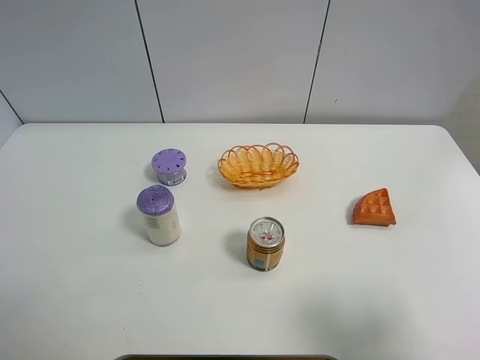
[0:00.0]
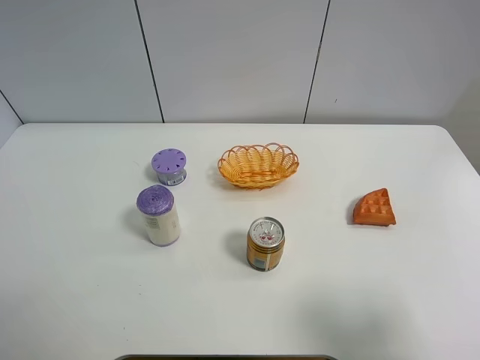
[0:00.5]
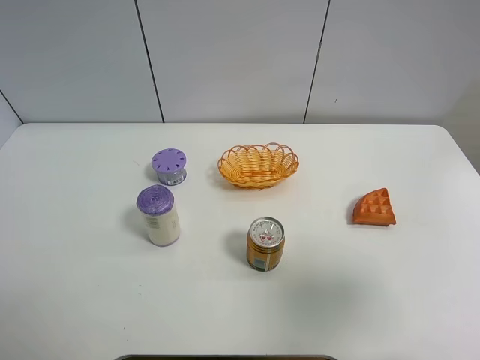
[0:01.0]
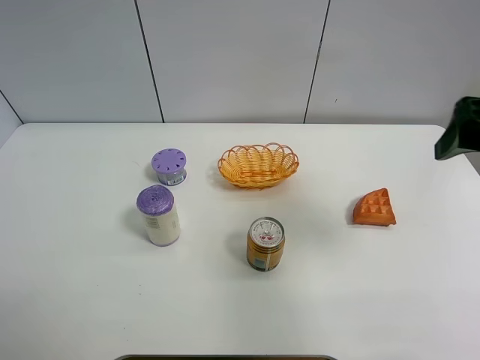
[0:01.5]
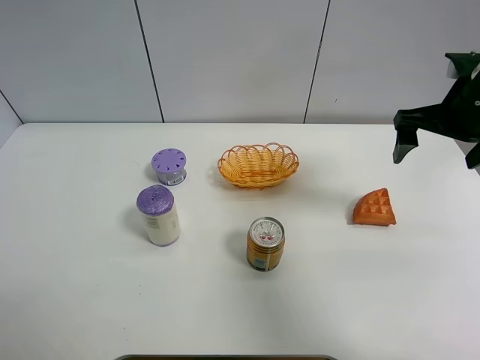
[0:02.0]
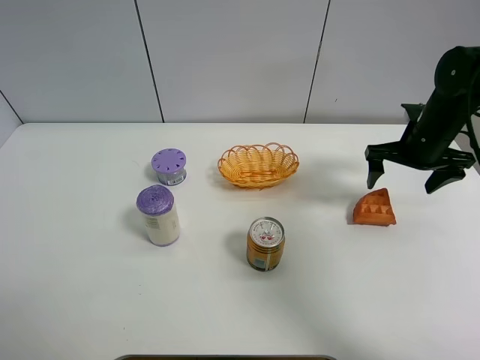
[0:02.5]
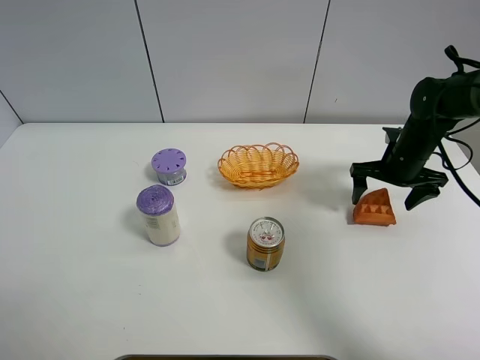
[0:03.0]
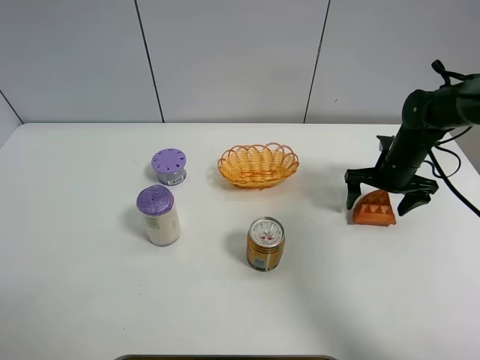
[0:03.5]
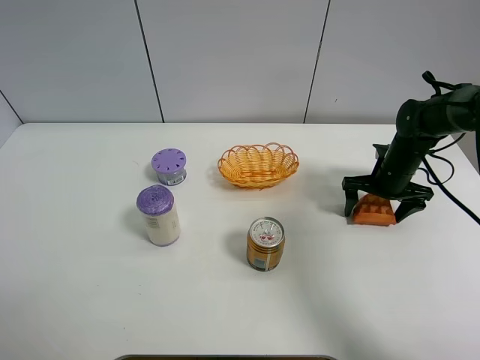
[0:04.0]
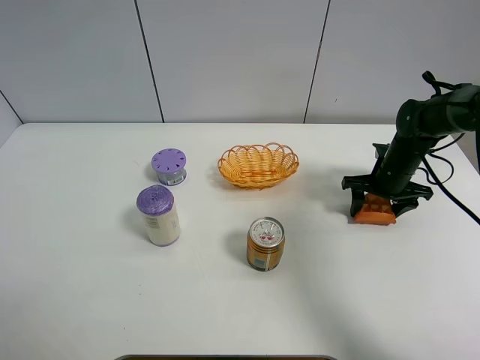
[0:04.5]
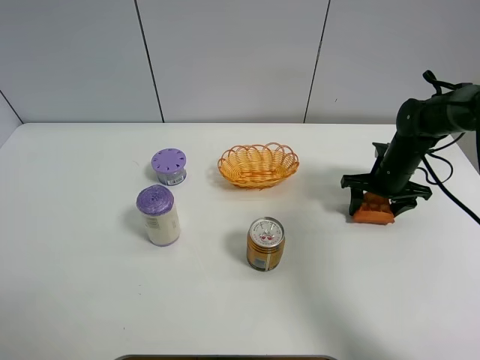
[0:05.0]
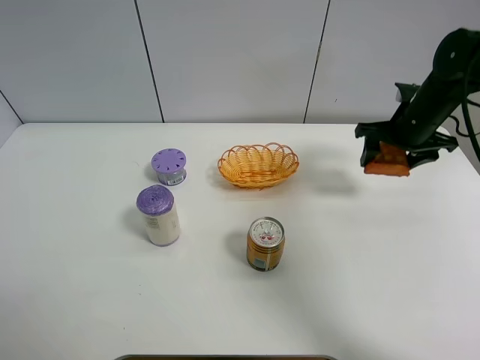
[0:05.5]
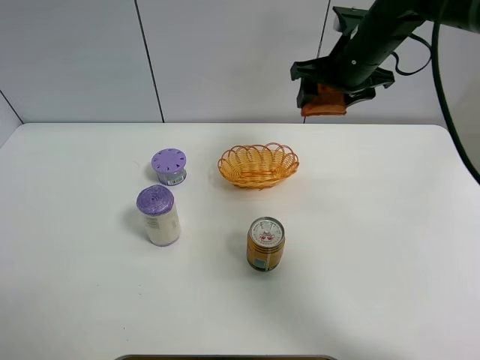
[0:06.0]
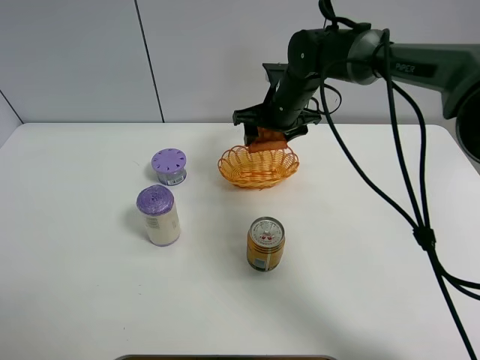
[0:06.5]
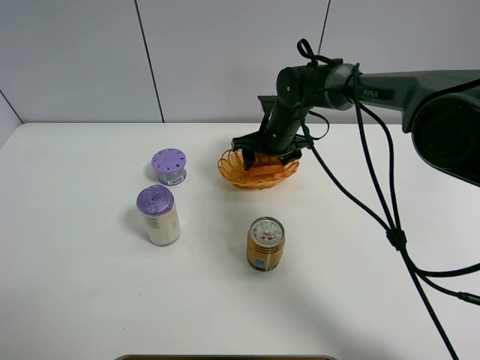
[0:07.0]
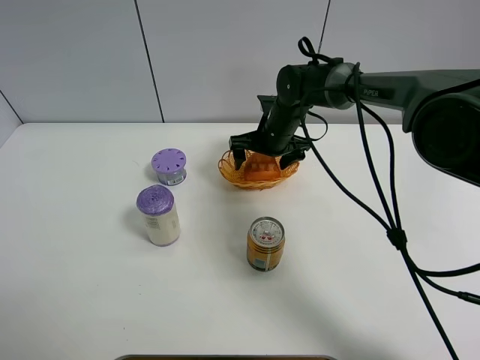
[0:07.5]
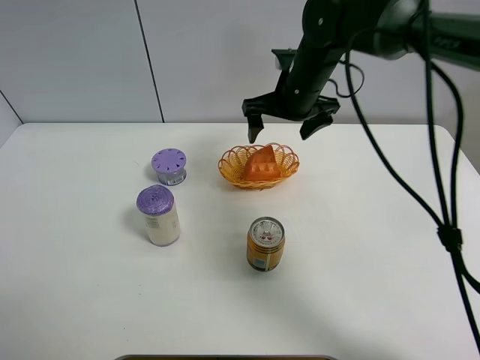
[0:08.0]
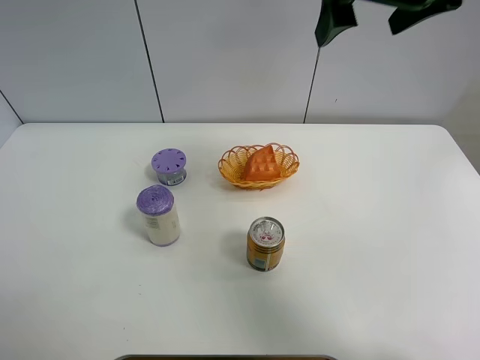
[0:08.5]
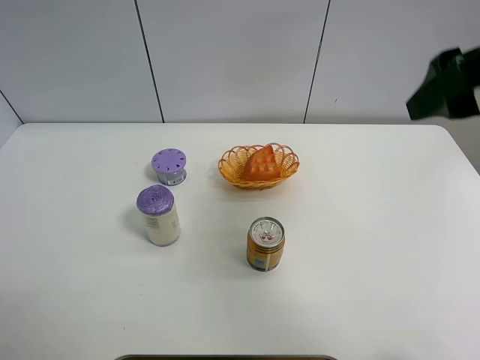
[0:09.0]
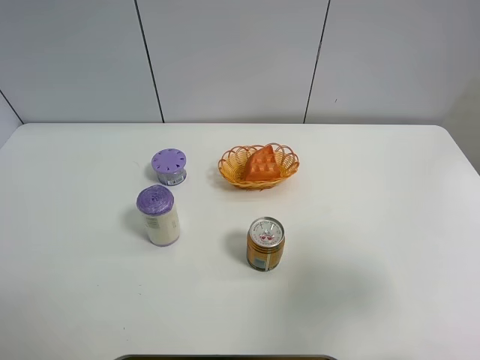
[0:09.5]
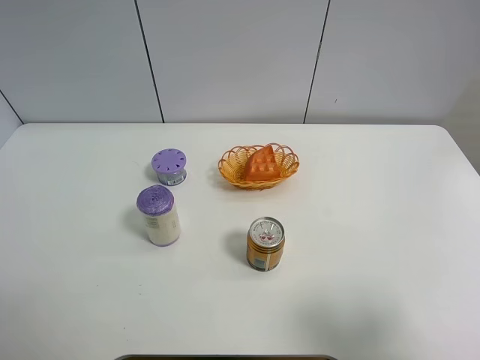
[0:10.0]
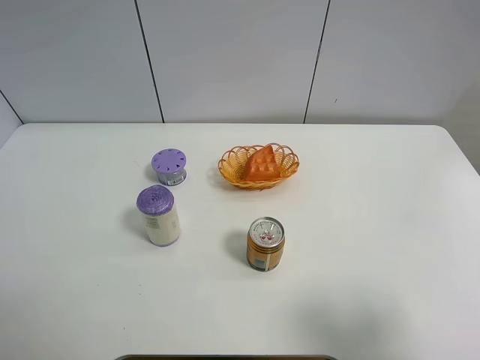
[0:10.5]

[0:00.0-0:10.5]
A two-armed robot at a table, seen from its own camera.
Task of the whole recording: Put the bakery in the basket.
Step, 0:00.0 to 0:04.0: Grasp the bread with right gripper.
Step, 0:04.5 to 0:08.0: Place the bread in the basket with right gripper.
0:00.0 to 0:02.0: The right gripper goes some 30 cm forward.
0:02.0 to 0:04.0: The right gripper moves downward, about 20 cm.
0:04.0 to 0:06.5: The right gripper is displaced to the left and upward by roughly 20 cm, and closes up.
0:06.5 to 0:08.5: The right gripper shifts about 30 cm upward and backward, and opens its fingers.
0:08.5 to 0:10.5: The right gripper is displaced backward, downward and to the right by about 35 cm.

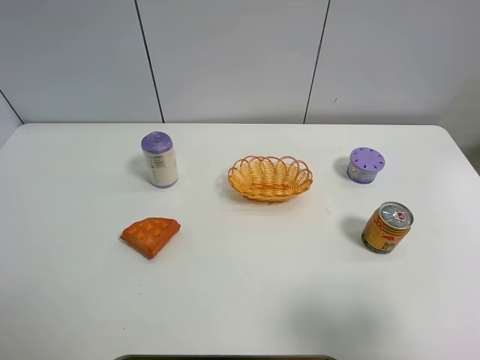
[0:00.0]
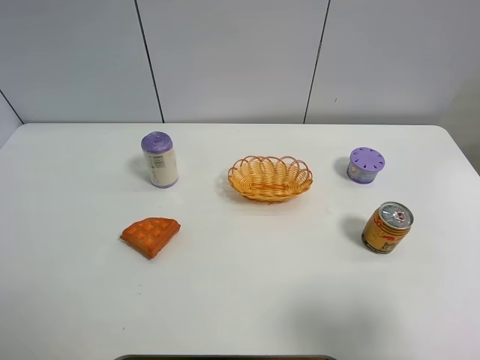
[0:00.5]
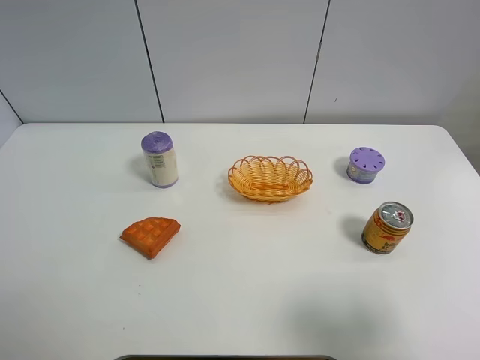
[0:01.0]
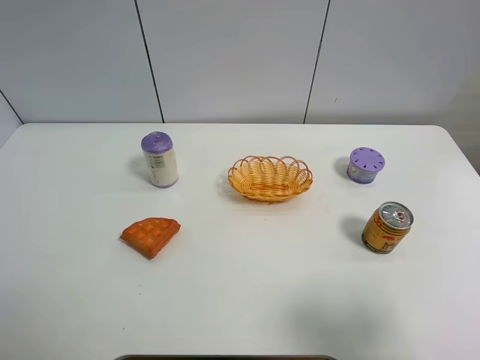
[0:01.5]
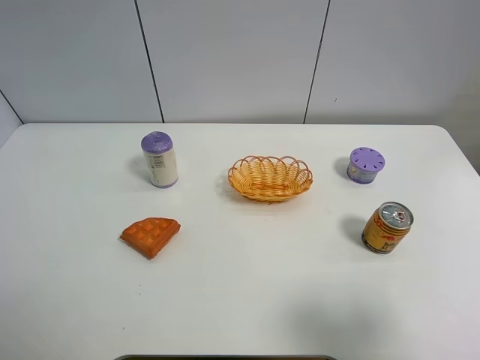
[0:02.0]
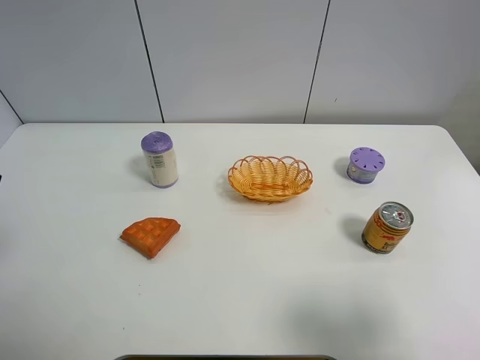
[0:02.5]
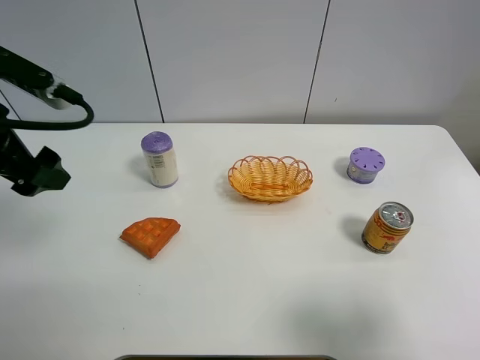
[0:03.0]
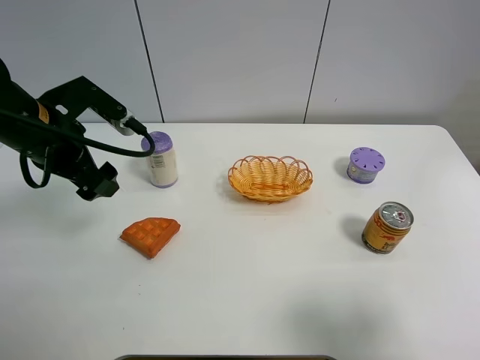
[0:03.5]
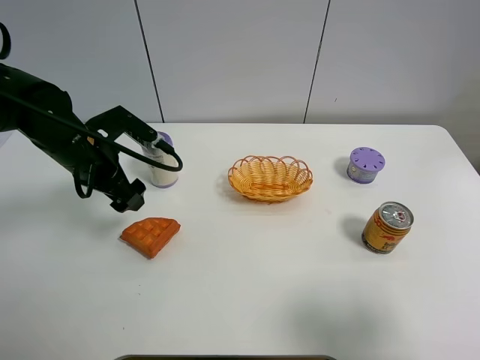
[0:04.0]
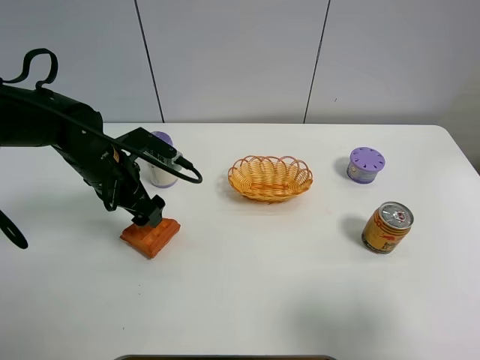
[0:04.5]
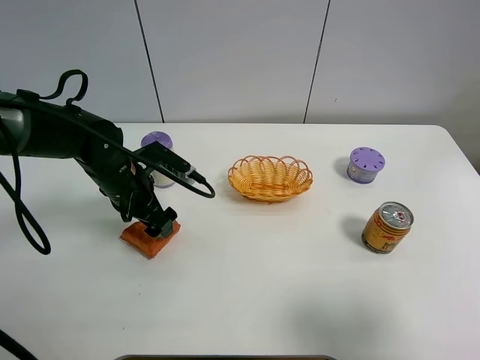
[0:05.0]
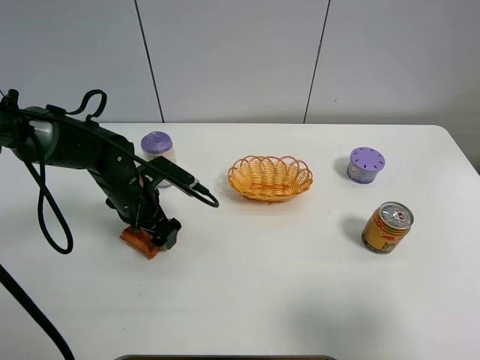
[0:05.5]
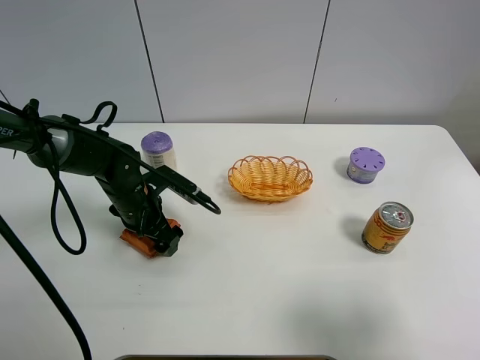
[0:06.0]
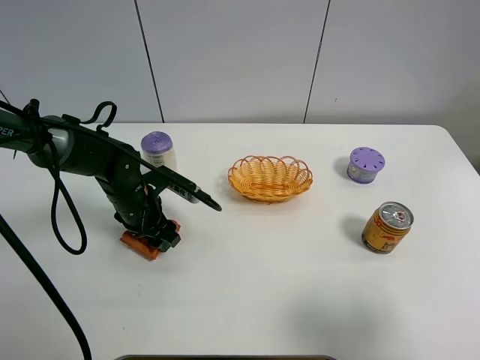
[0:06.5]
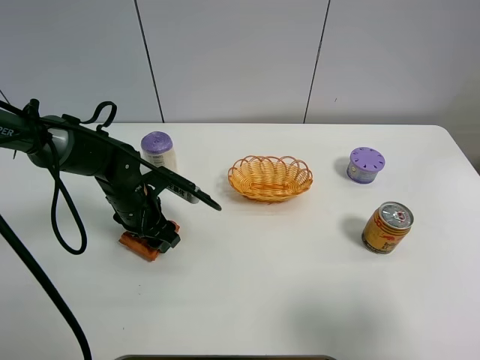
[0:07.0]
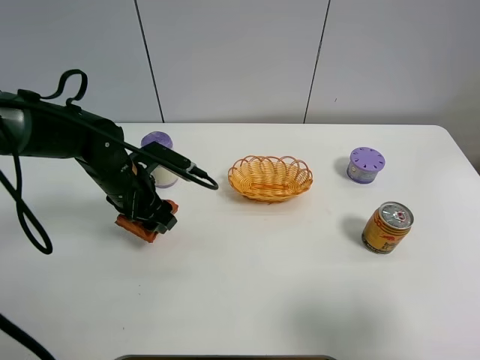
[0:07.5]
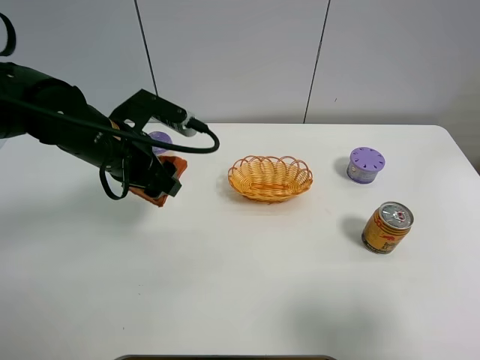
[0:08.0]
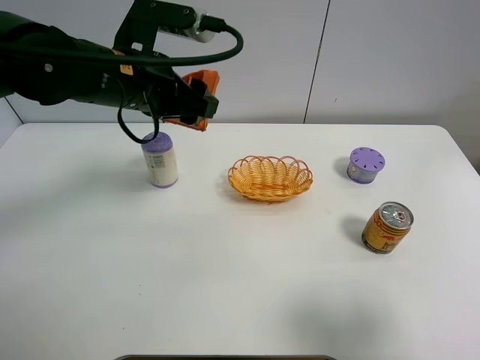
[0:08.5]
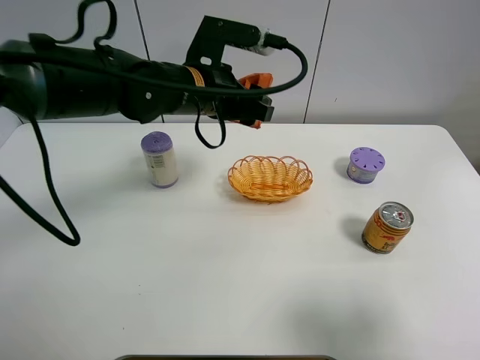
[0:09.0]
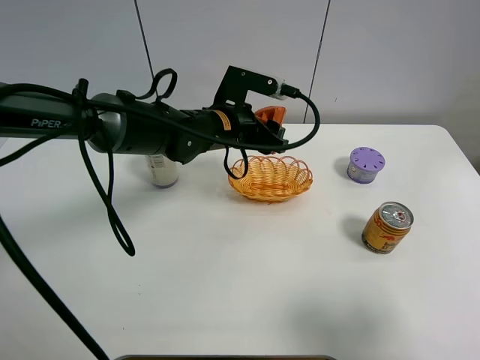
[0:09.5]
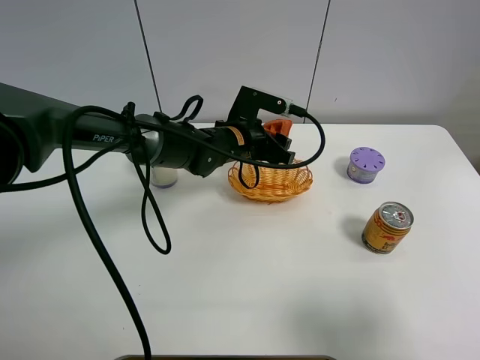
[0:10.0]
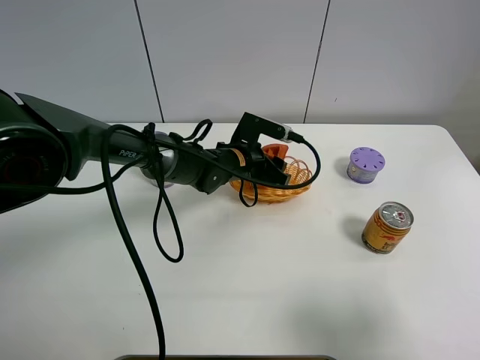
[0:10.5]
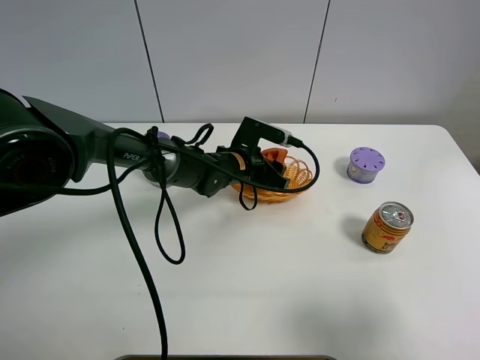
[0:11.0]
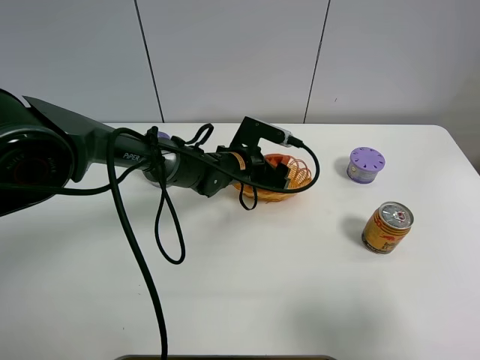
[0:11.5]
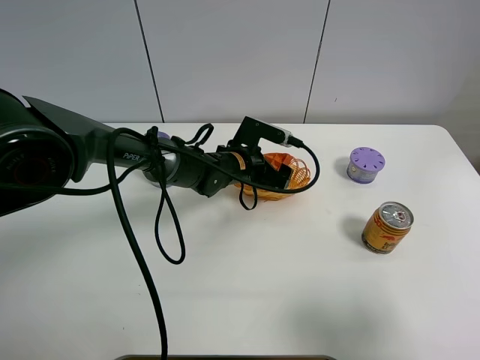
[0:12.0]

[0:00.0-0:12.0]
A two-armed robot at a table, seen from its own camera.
Task of the whole recording: Put the bakery in the basket.
0:02.0 to 0:04.0: The left gripper goes some 30 cm forward, downward and to the right.
0:04.0 to 0:06.0: The left gripper travels downward by some 10 cm.
0:06.0 to 0:08.0: The left gripper shifts some 15 cm upward, and closes.
0:08.0 to 0:10.0: The left gripper moves to the right, downward and forward, some 20 cm.
0:10.0 to 0:12.0: The left gripper is displaced downward by approximately 5 cm, and opens.

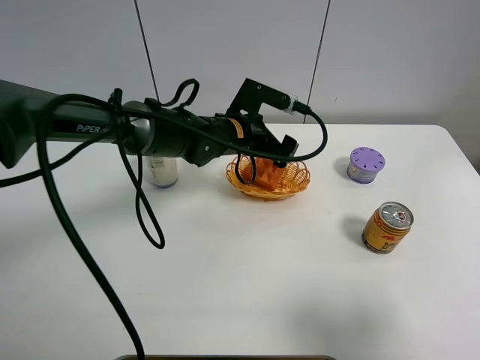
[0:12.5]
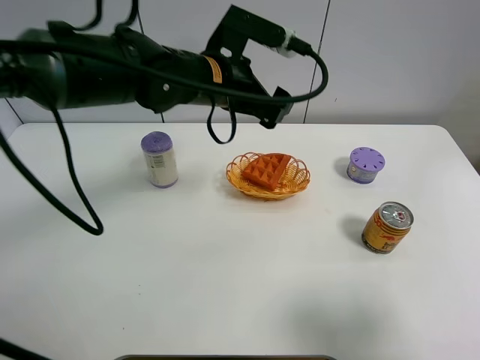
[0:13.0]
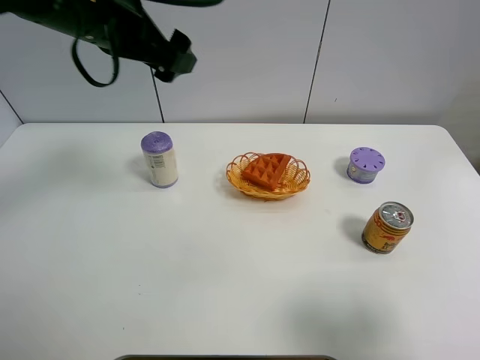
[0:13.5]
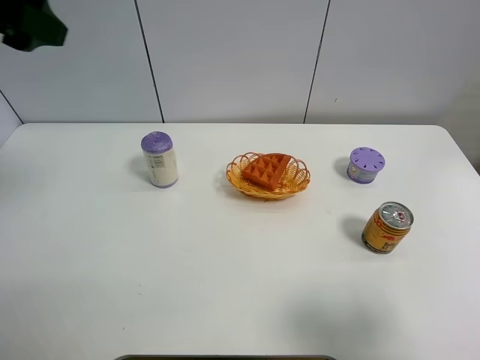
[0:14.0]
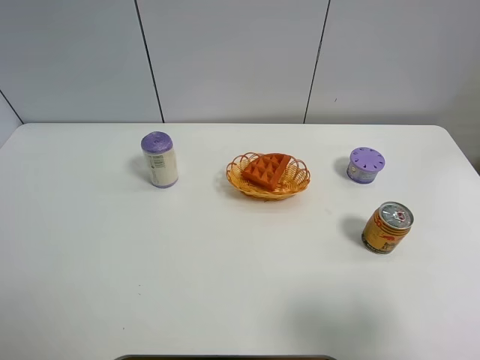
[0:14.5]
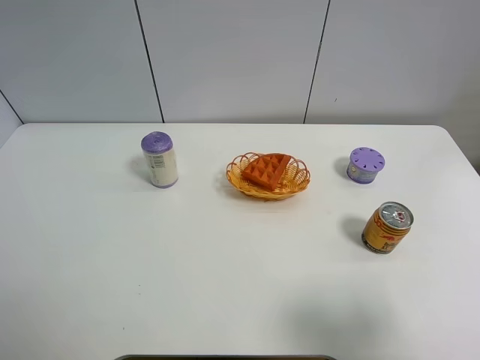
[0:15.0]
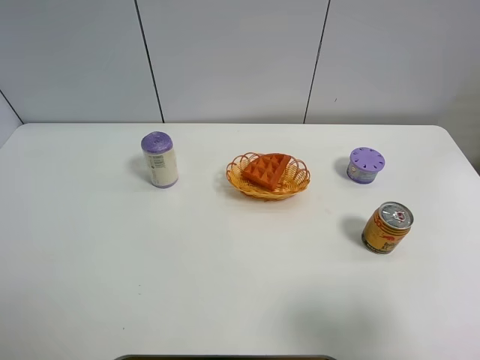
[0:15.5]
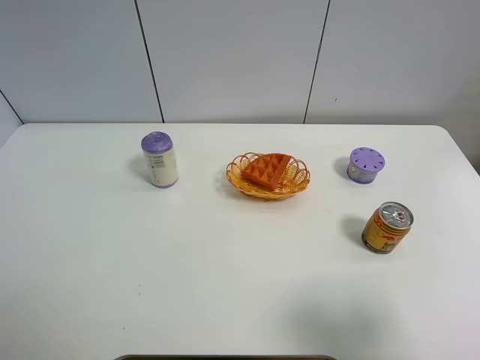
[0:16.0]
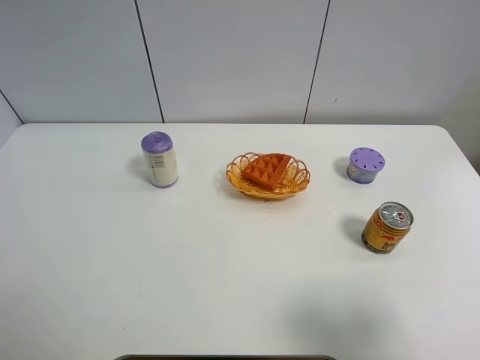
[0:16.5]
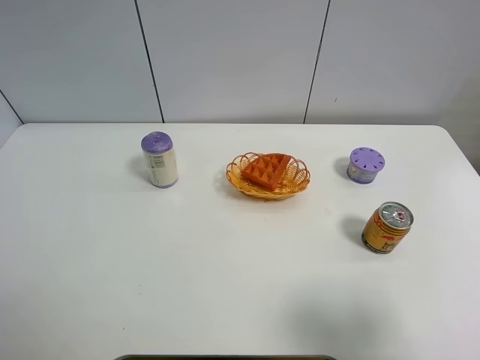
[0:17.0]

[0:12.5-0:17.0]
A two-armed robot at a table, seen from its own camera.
Task of the whole recording: Put the bakery in the basket.
0:12.5 to 0:14.5: The left gripper heads to the left, upward and backward, covering some 50 cm.
